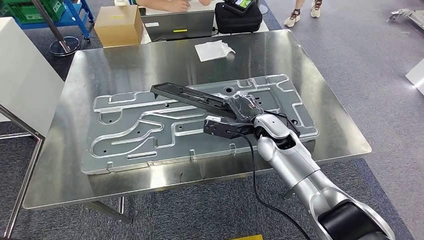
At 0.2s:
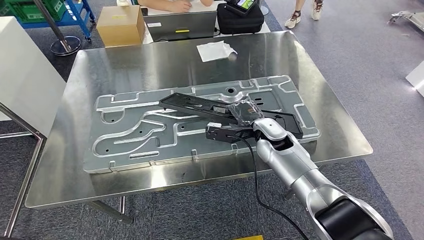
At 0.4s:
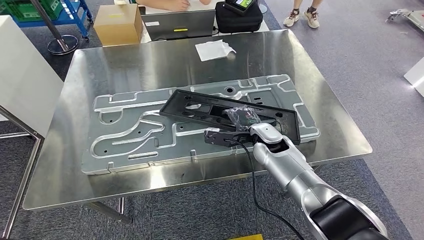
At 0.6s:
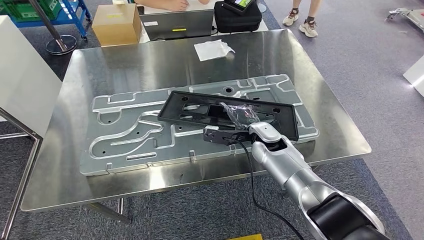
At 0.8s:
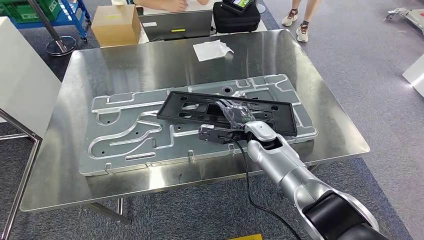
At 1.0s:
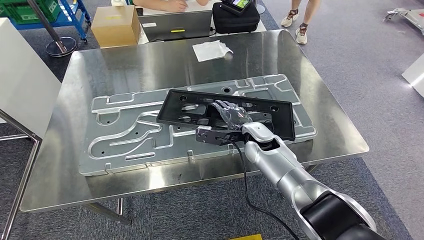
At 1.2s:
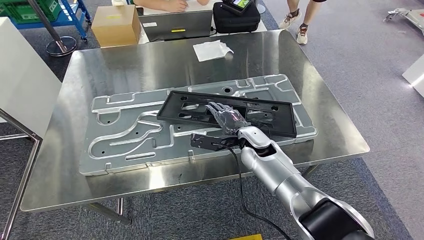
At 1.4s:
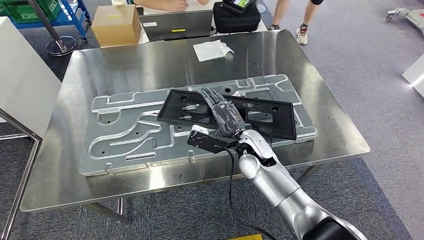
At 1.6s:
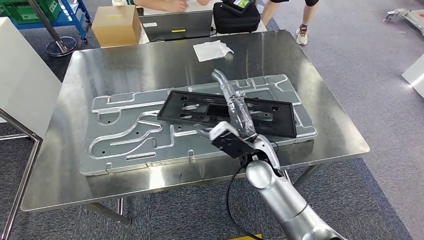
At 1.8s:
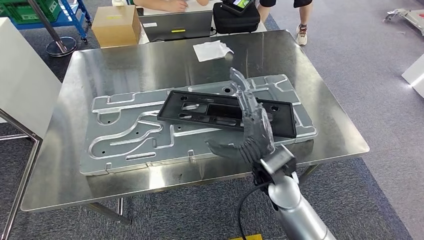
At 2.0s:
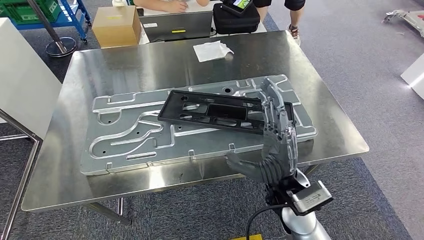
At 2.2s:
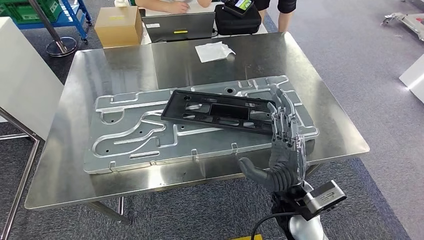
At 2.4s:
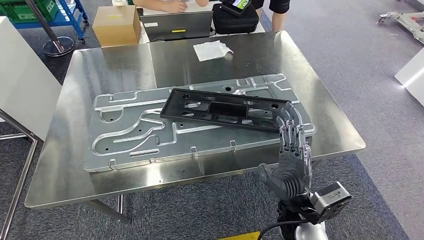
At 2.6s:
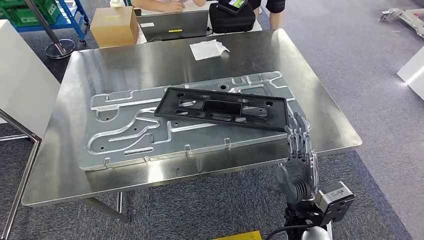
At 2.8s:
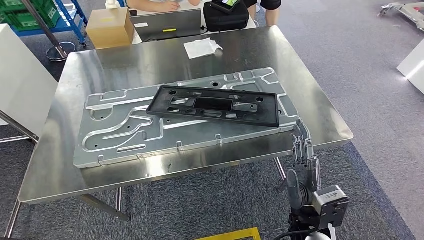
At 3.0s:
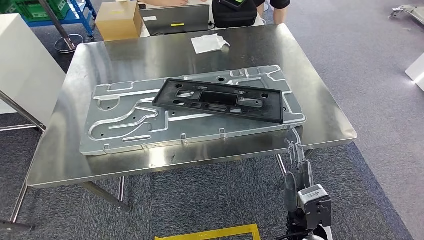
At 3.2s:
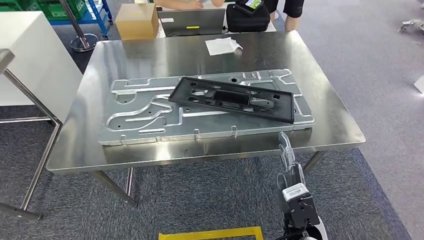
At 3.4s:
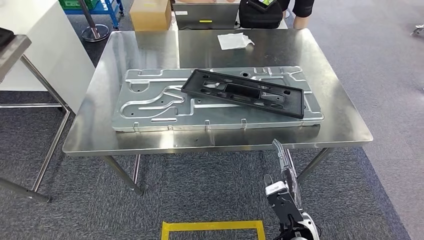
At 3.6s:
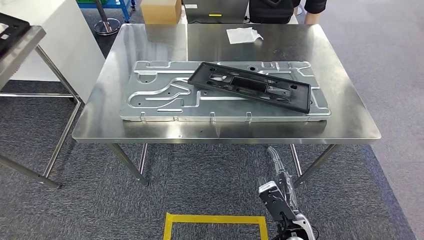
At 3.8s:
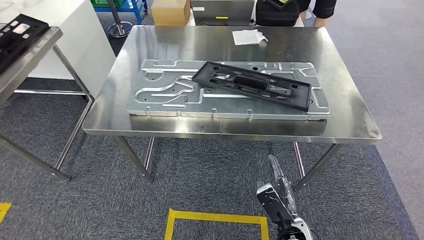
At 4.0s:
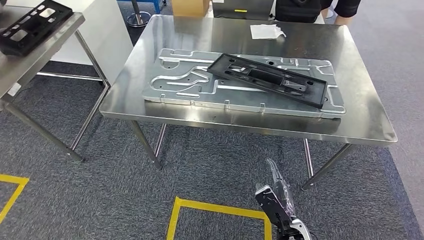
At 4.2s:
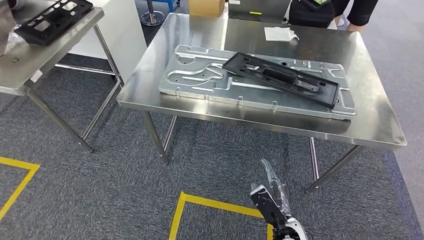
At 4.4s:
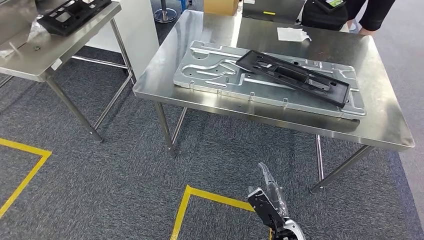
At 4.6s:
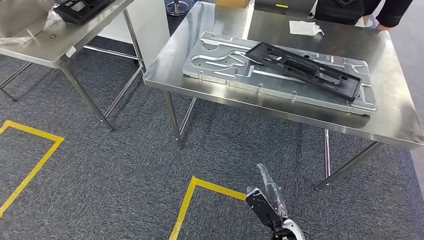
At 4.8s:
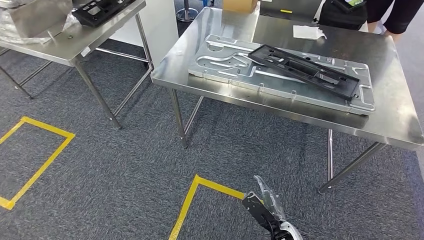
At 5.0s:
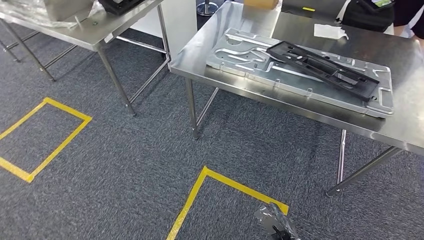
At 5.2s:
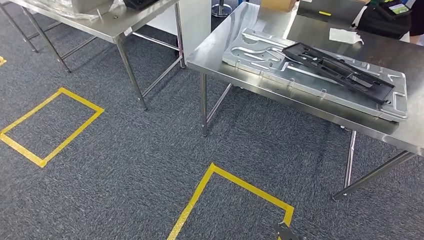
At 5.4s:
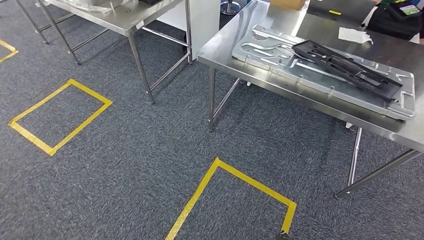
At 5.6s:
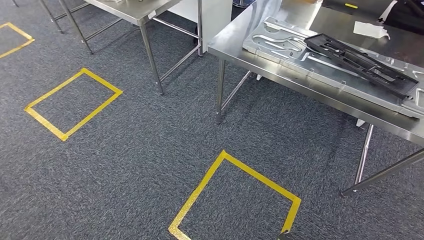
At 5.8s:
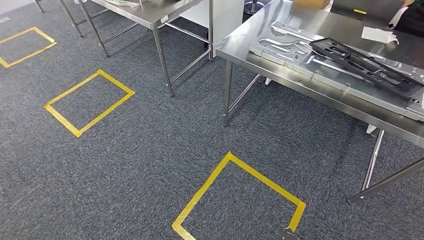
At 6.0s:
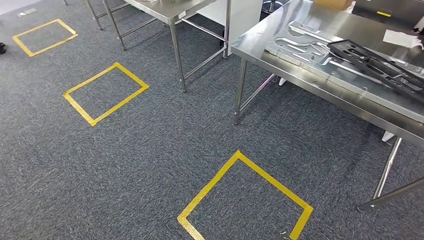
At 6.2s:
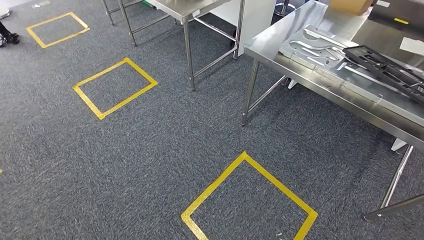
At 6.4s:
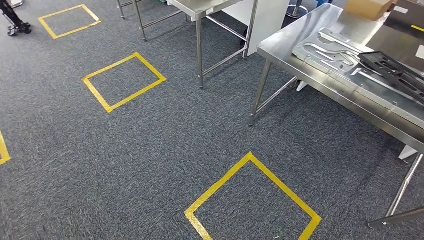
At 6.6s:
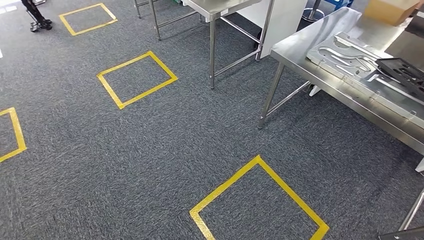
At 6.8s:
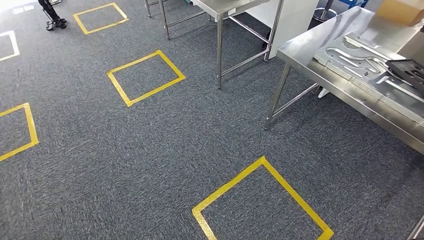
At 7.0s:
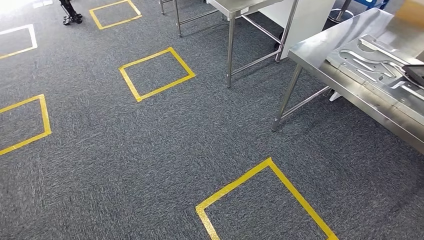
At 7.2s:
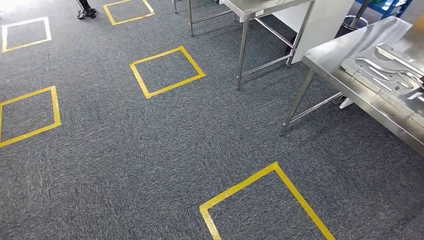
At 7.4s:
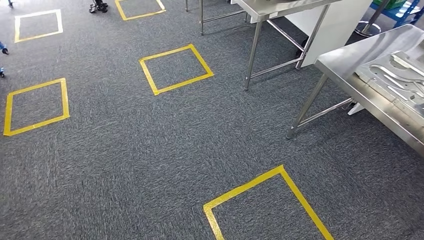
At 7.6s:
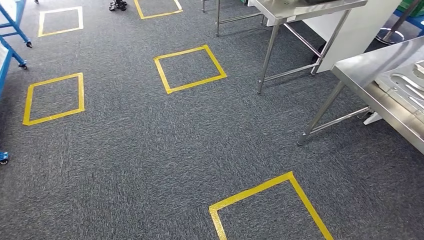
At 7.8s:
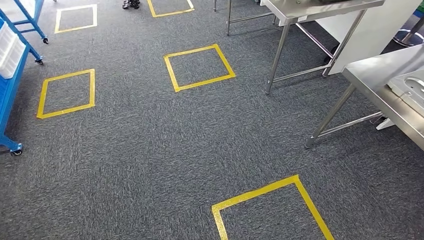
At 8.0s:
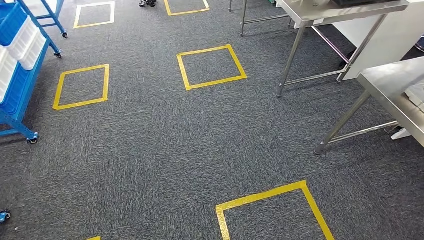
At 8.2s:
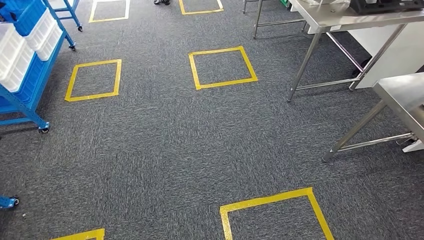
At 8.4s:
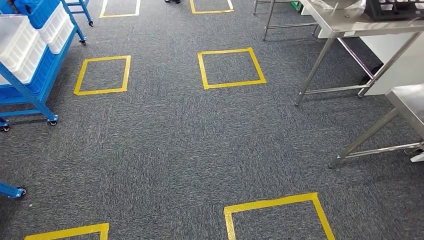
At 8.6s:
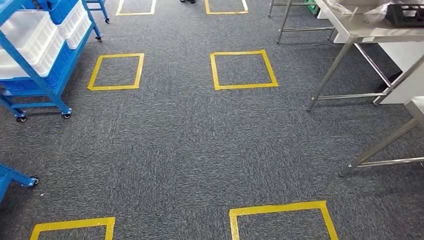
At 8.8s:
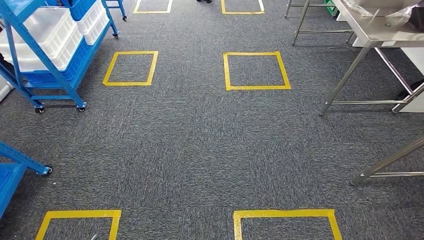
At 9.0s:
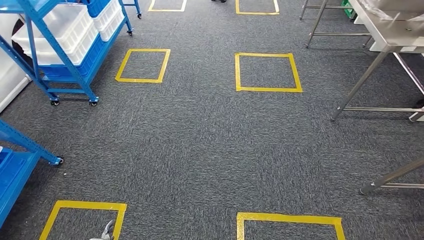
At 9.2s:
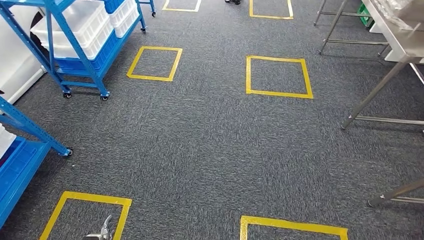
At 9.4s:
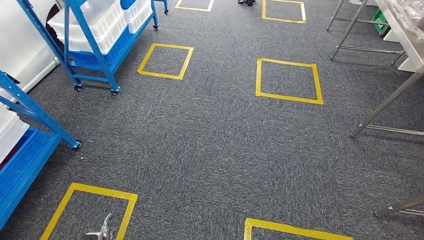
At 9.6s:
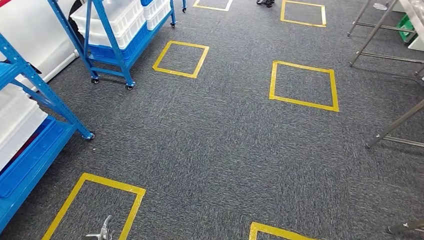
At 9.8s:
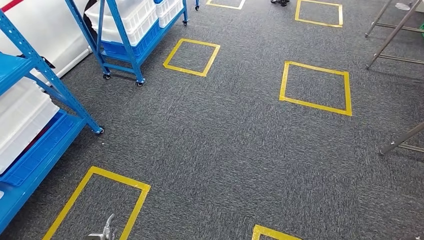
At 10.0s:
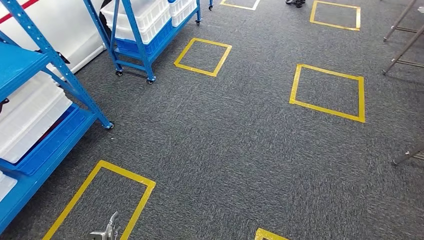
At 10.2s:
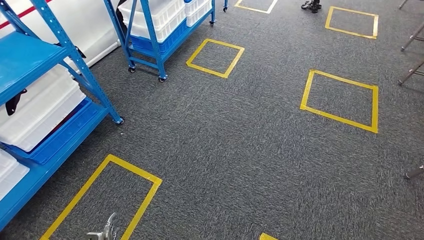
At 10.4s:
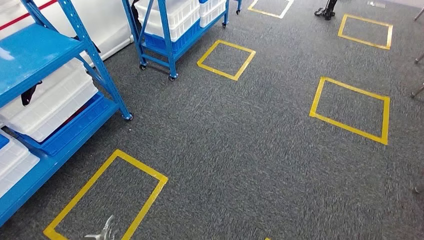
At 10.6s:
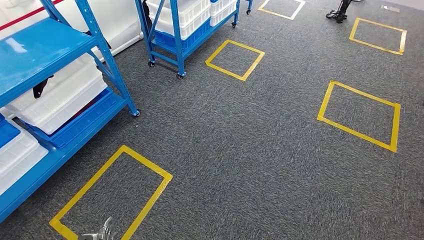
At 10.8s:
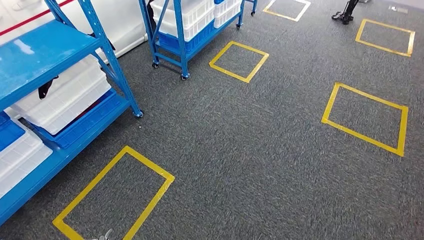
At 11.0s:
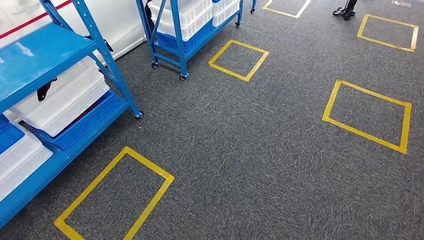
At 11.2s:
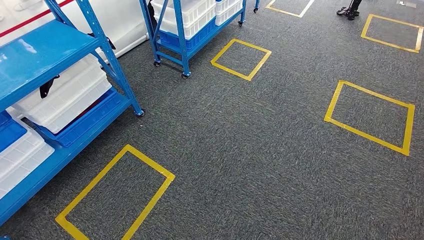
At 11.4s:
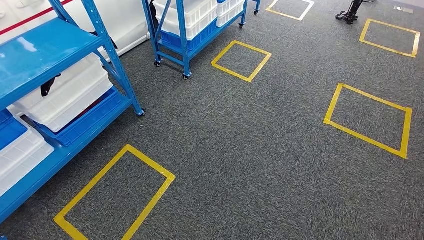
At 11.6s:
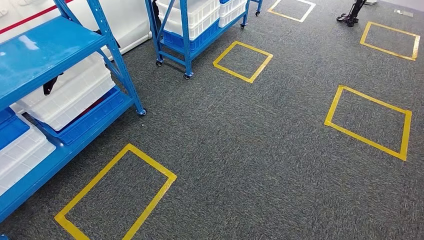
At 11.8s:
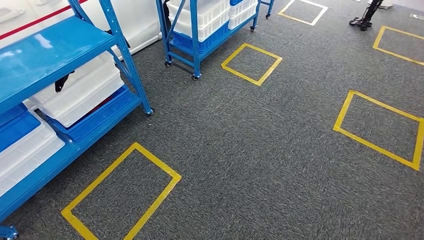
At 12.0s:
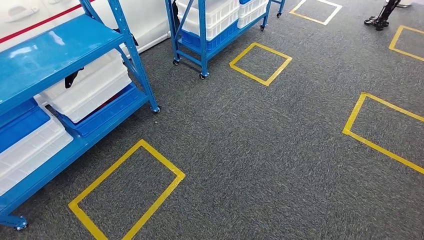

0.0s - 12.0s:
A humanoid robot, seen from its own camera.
Step, 0.0s - 3.2s: Insert the large material into the corresponding hole on the workbench.

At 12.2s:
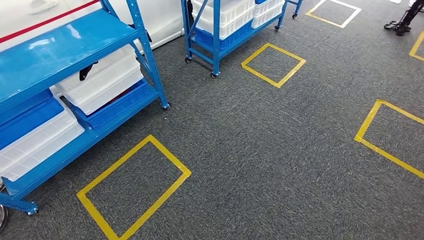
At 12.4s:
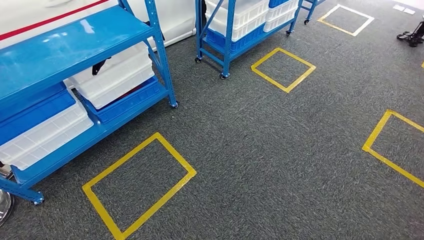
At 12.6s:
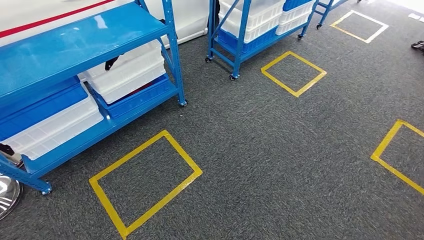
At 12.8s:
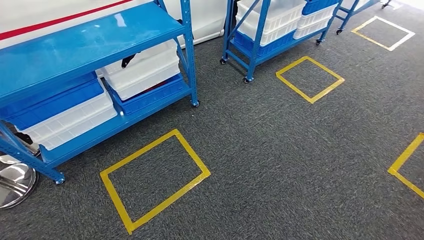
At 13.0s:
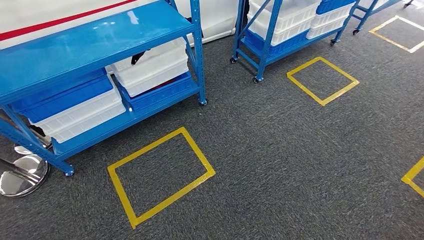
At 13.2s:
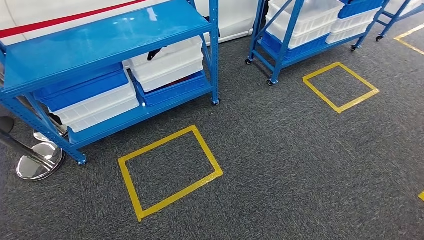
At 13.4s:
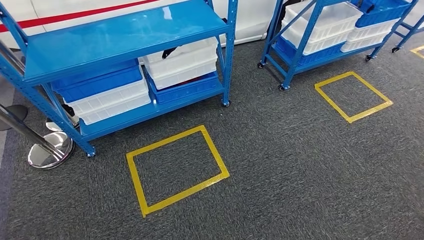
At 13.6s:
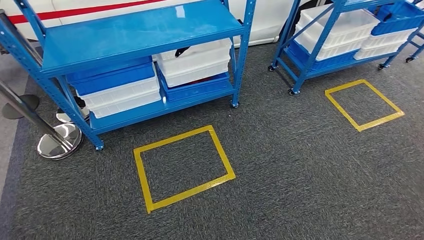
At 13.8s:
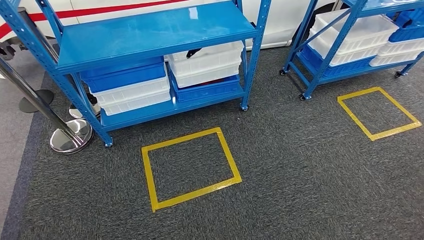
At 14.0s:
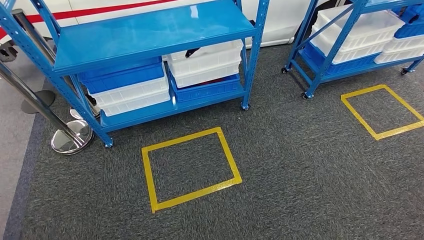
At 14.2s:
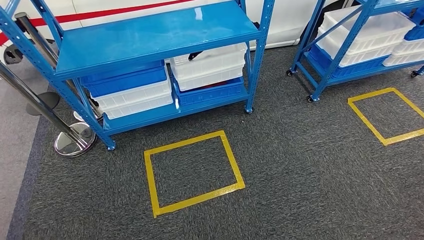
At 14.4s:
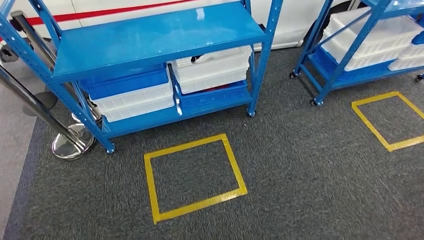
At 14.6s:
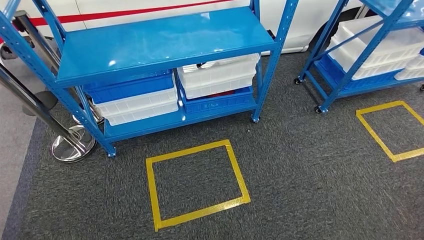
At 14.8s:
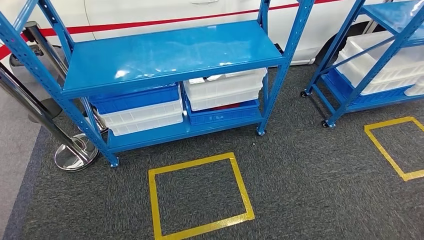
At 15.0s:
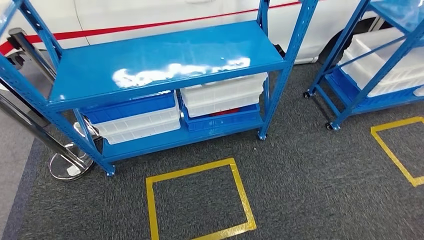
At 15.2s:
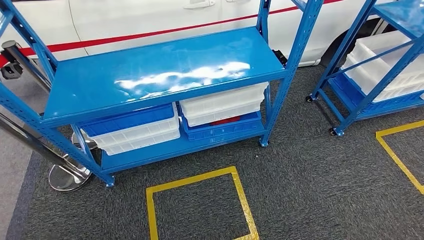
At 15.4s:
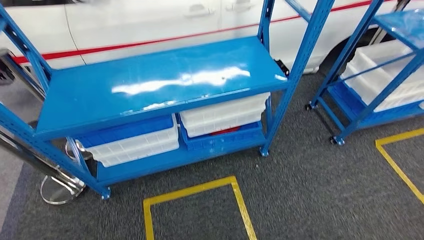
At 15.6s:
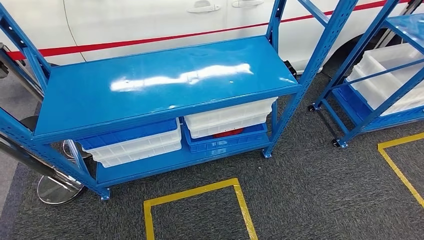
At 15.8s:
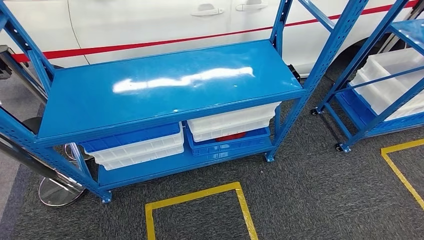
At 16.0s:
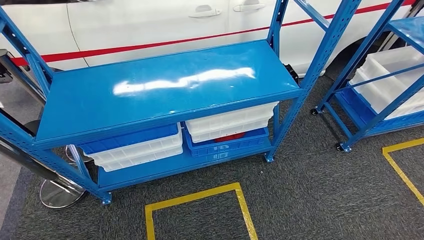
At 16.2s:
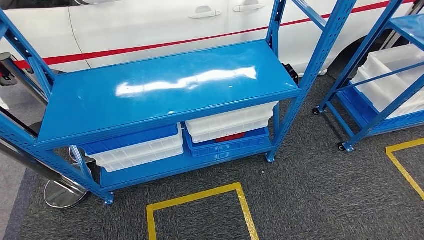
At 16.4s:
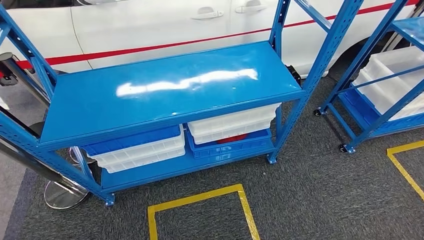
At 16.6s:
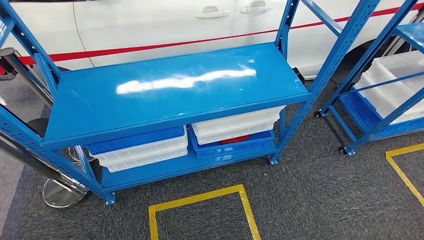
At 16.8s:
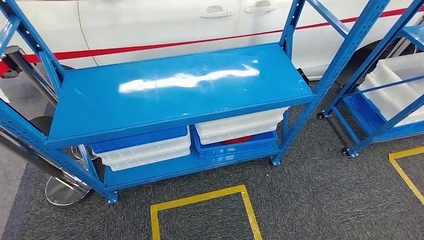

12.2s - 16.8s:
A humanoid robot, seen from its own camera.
Step, 12.2s - 16.8s: Move to the initial position of the shelf.
